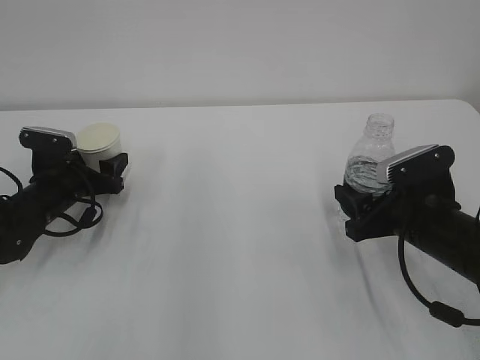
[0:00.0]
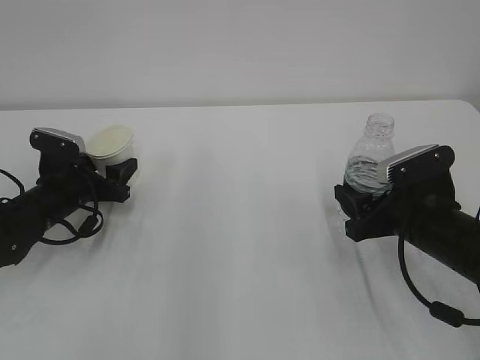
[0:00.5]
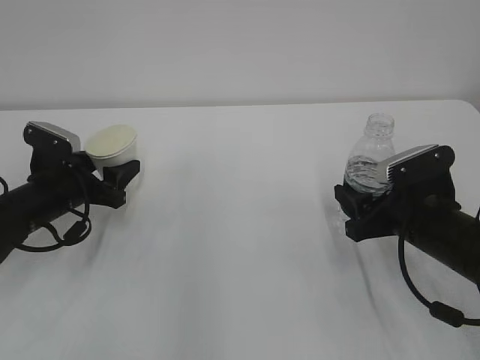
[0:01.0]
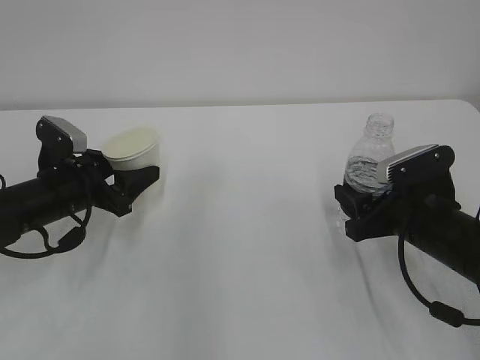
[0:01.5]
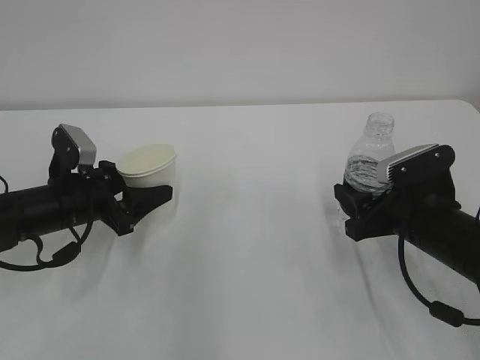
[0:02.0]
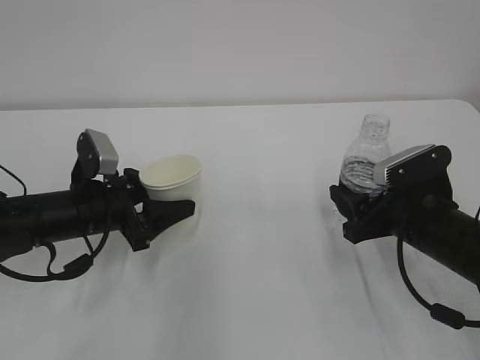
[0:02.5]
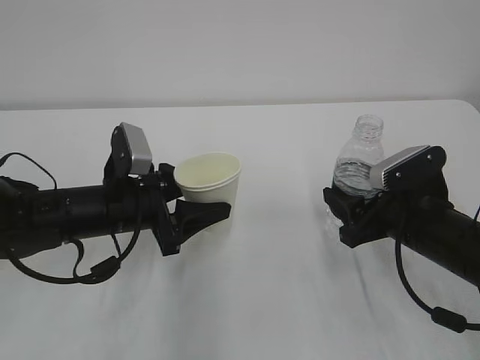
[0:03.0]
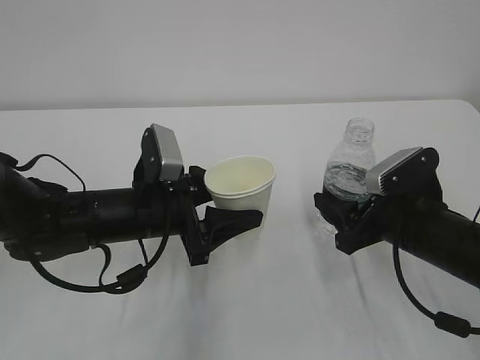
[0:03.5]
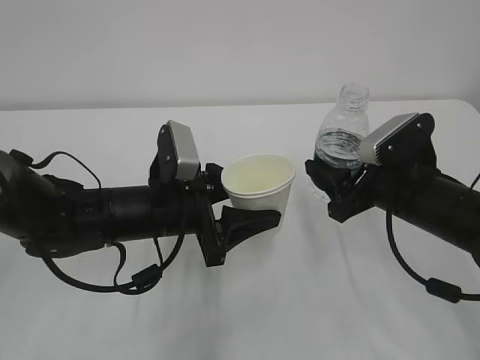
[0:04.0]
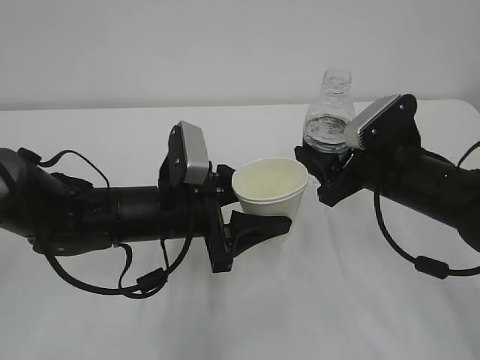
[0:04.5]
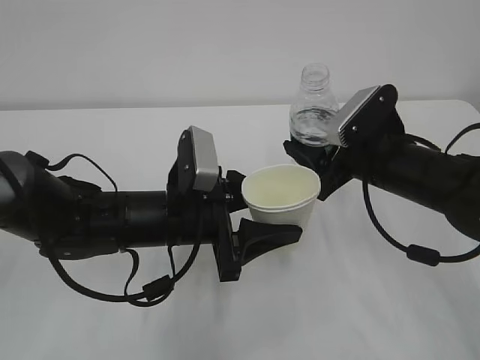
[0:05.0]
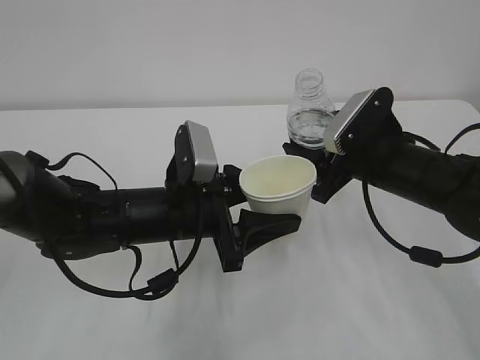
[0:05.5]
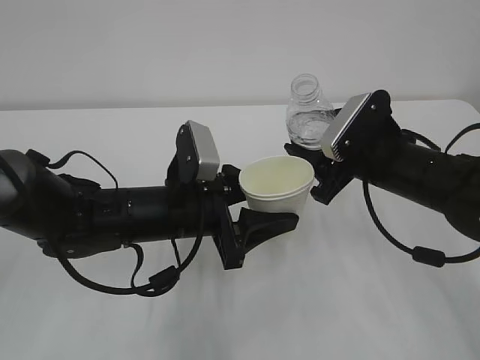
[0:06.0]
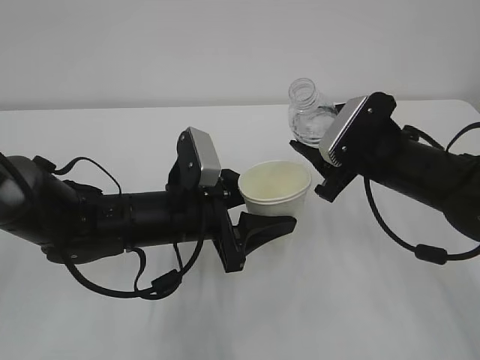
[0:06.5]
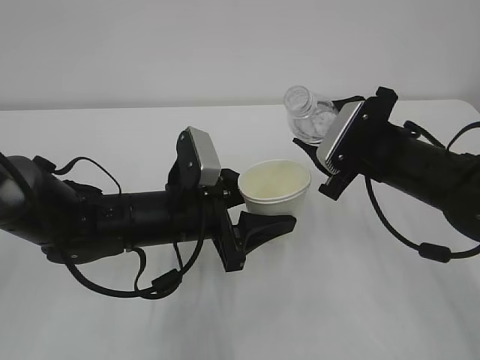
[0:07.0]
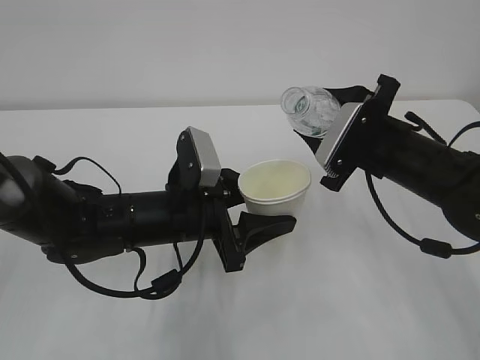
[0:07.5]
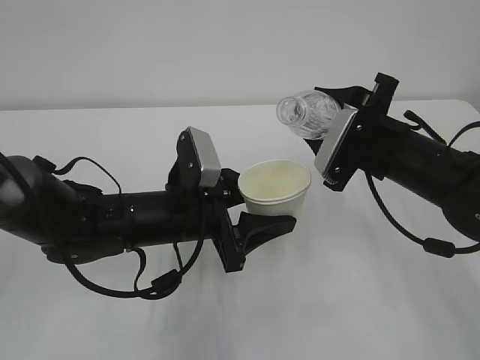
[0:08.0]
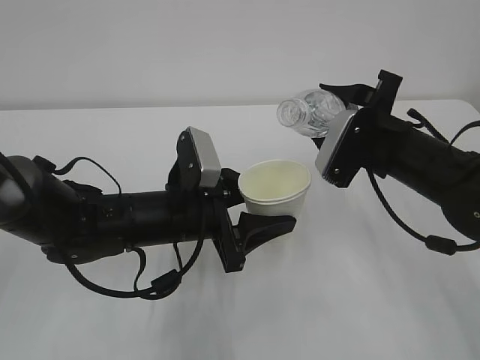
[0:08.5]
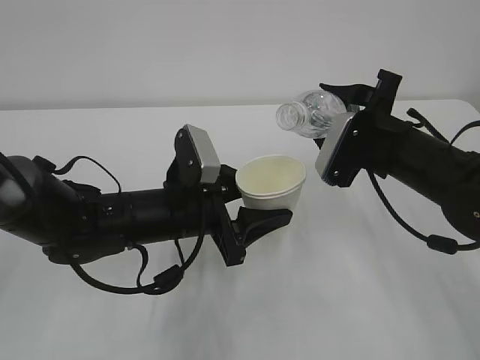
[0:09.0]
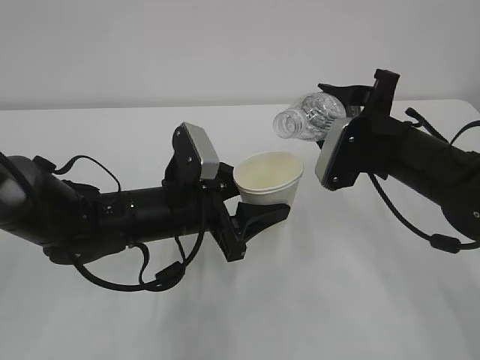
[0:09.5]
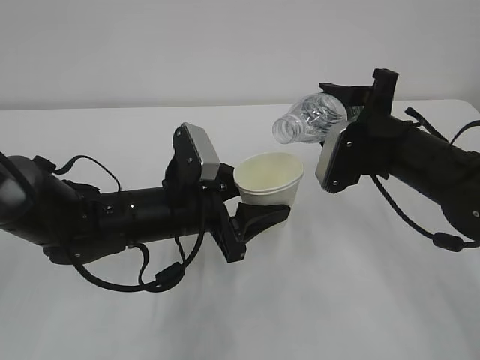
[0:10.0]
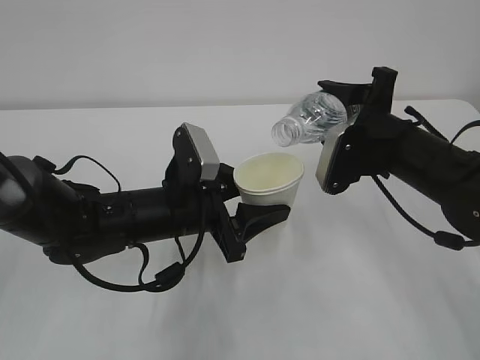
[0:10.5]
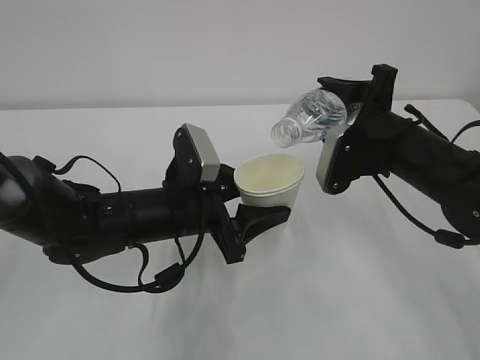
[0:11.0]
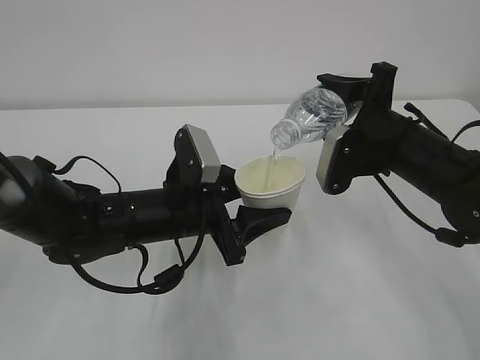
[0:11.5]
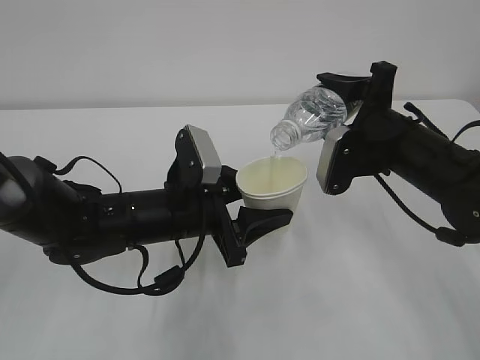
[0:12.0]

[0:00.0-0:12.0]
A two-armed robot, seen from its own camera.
0:00.0 to 0:02.0: The left gripper is displaced backward by approximately 5 cm.
0:02.0 to 0:04.0: The left gripper moves to the right, some 15 cm.
0:08.0 to 0:10.0: The grippers stay close to where they were, moving slightly.
0:10.0 to 0:12.0: There are only small adjustments of the grippers.

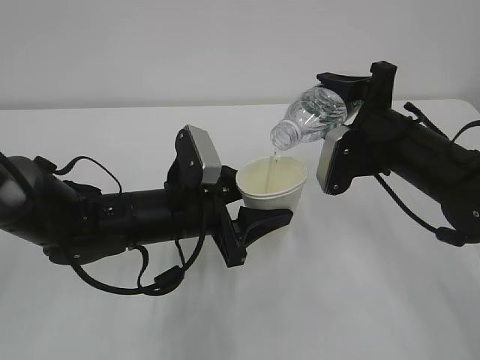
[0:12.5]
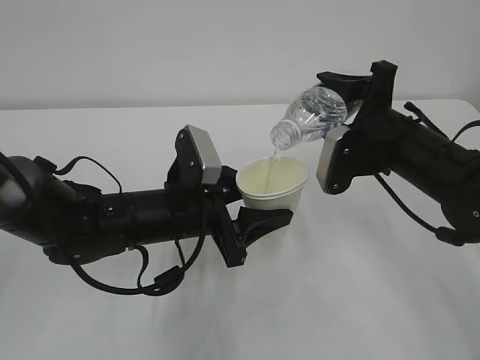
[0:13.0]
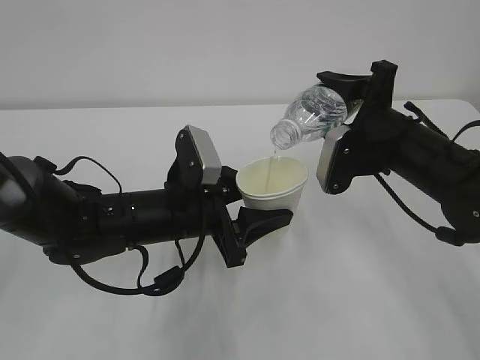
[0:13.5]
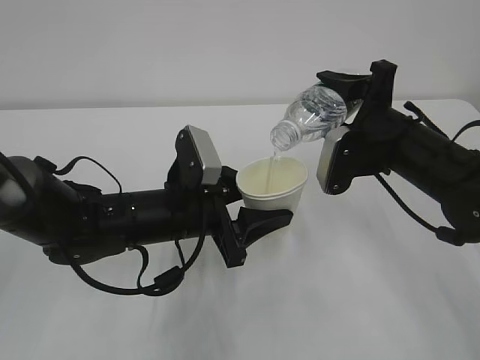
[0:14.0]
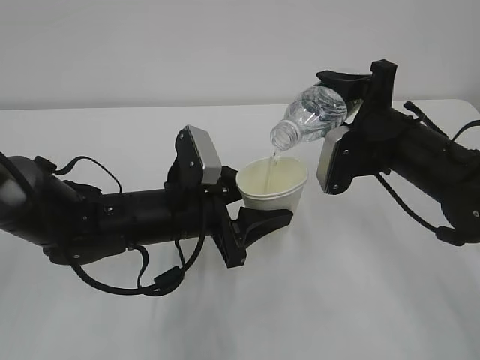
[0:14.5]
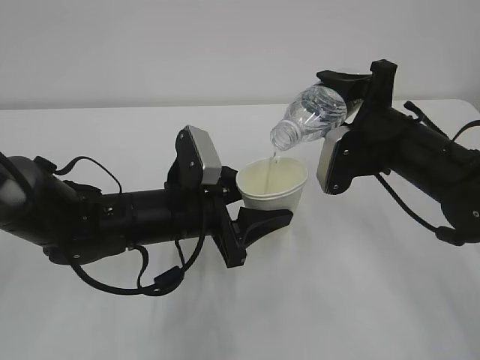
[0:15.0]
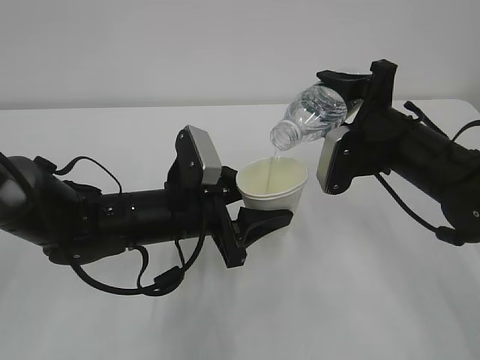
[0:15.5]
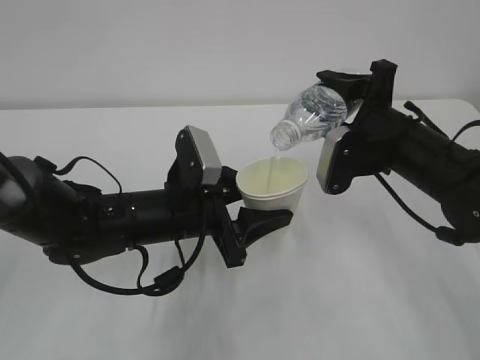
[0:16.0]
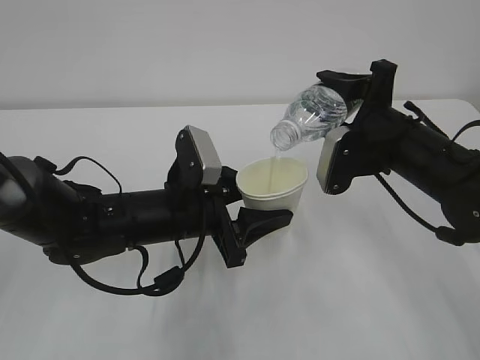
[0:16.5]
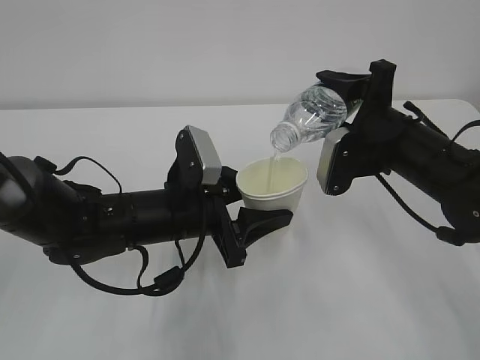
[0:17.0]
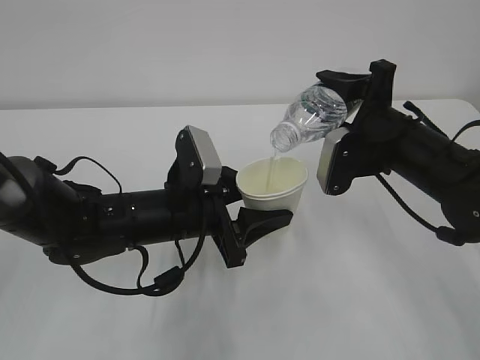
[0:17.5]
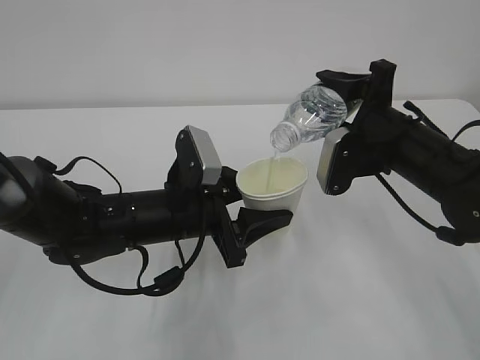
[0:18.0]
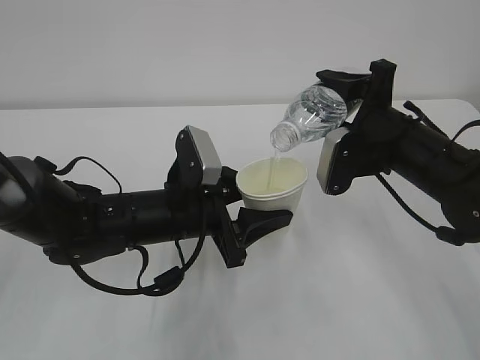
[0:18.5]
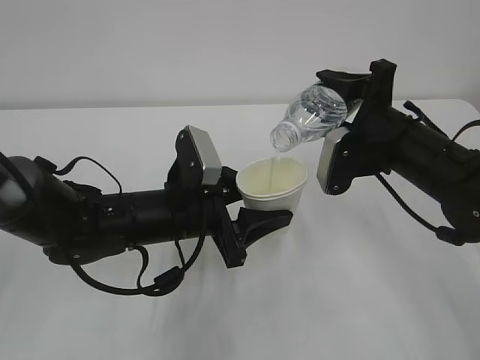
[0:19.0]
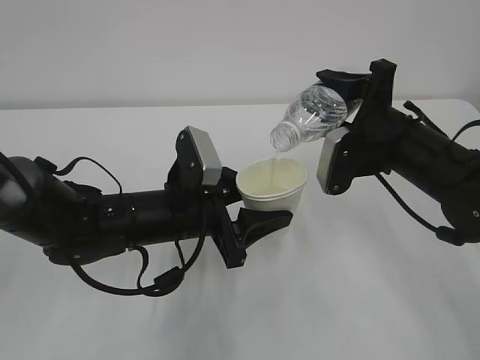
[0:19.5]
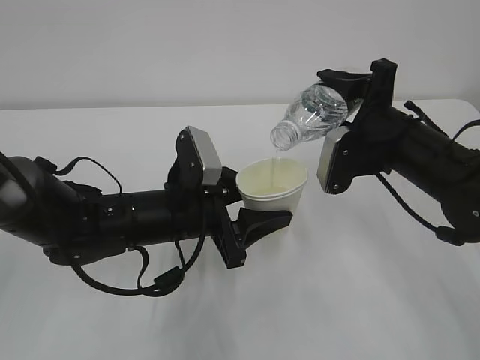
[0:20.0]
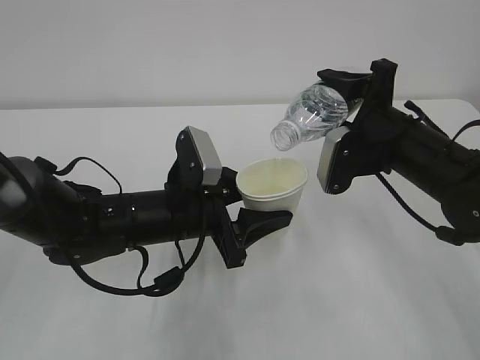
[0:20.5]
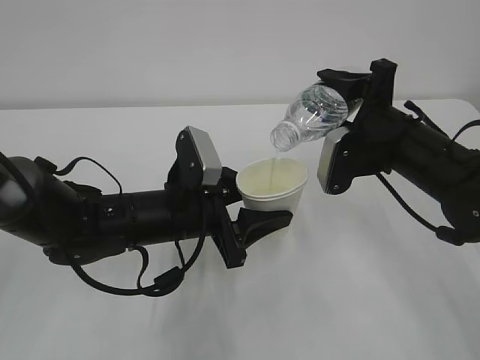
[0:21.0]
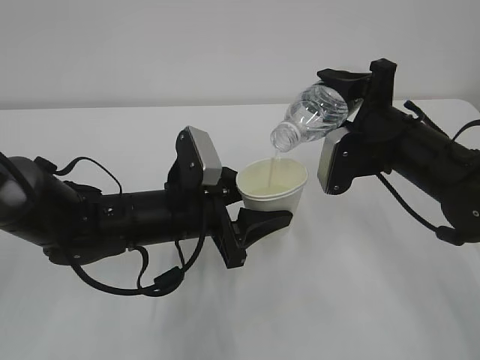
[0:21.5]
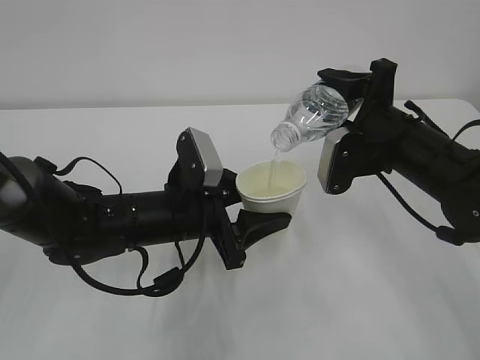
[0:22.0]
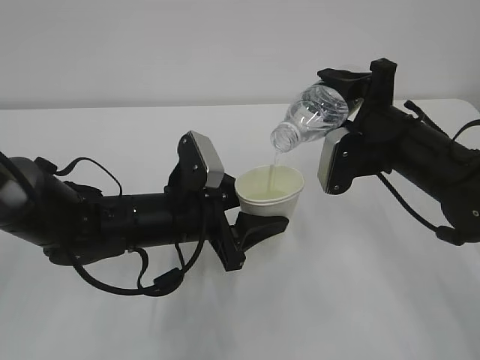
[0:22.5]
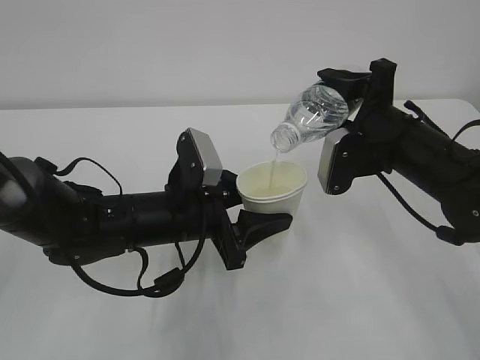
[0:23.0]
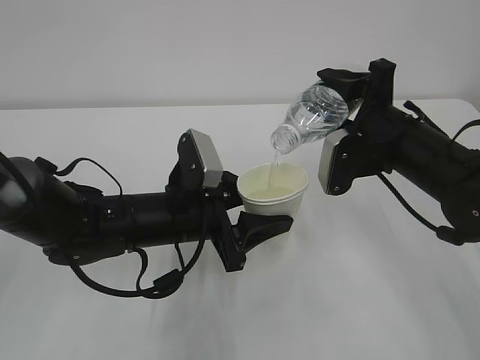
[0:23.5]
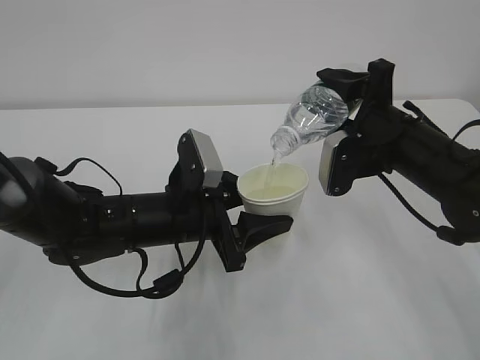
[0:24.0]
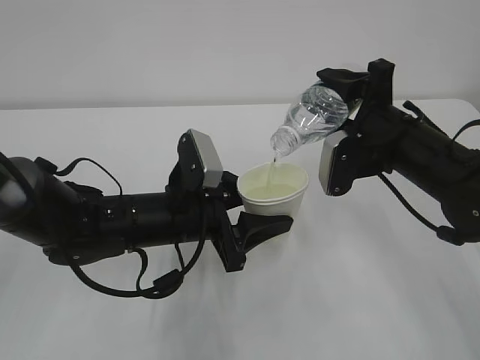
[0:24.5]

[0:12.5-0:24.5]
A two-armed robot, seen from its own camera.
0:12.5 to 0:22.5: Neither gripper changes place.
0:22.5 to 0:24.5: Both grippers stay about where they are.

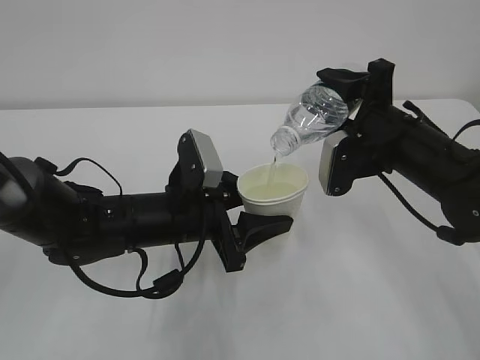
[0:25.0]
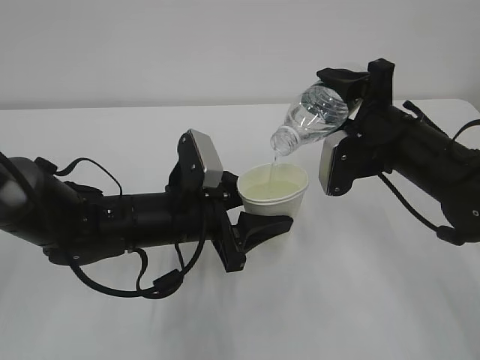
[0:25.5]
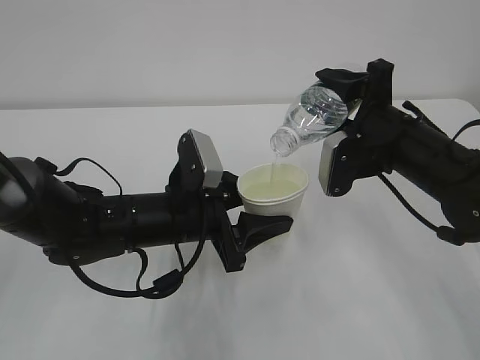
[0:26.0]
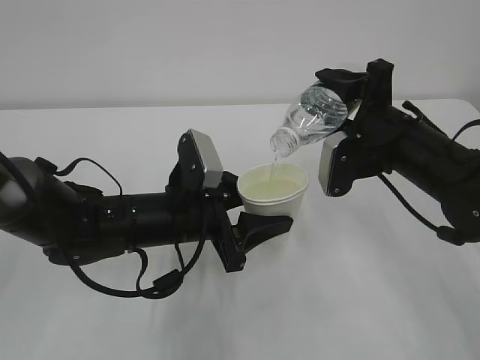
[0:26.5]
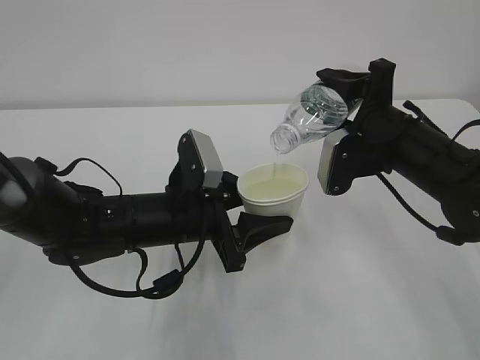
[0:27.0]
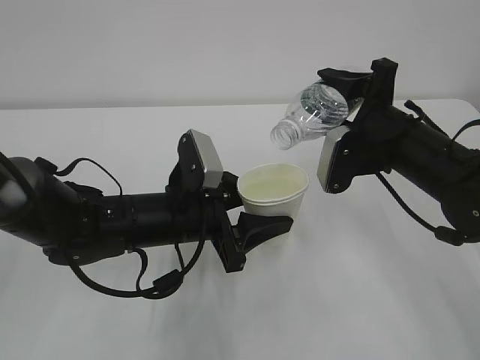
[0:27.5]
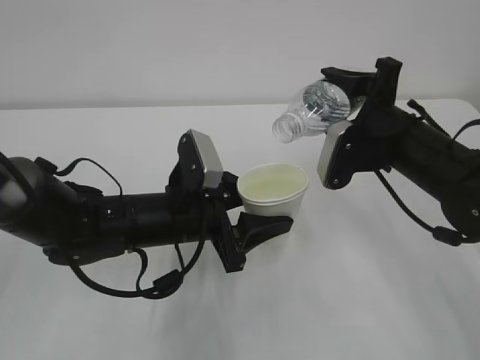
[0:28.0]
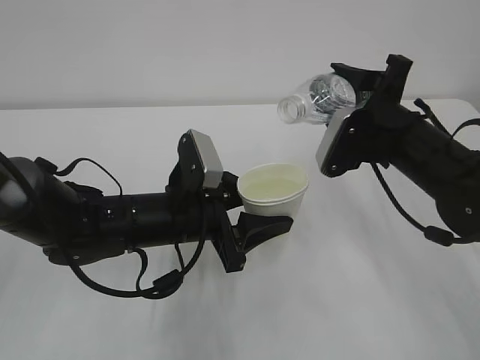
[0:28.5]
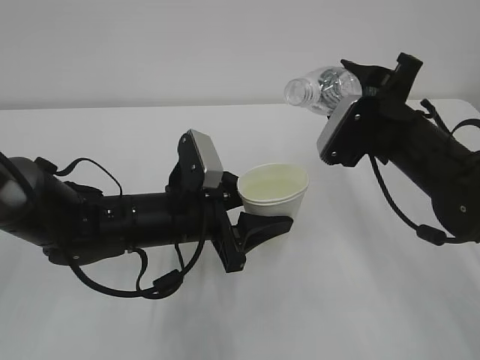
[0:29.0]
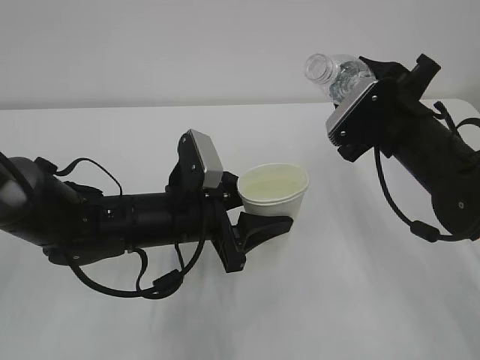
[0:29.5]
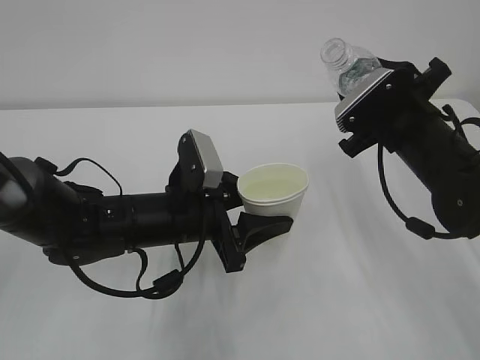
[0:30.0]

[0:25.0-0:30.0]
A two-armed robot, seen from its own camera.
0:25.0 to 0:27.5: The grippers move only a little.
